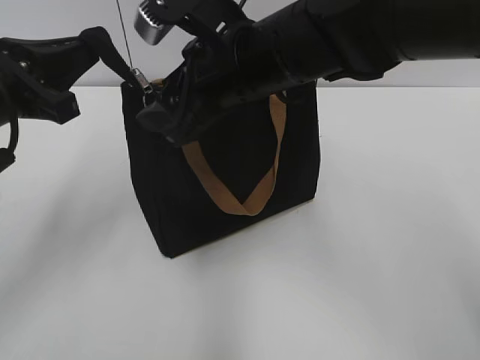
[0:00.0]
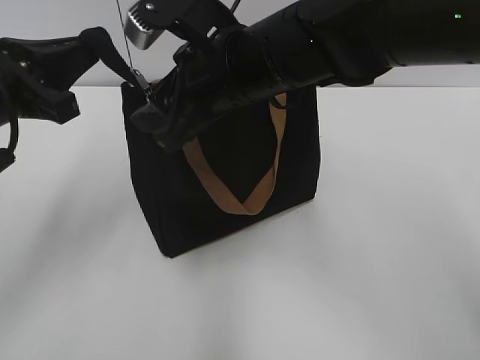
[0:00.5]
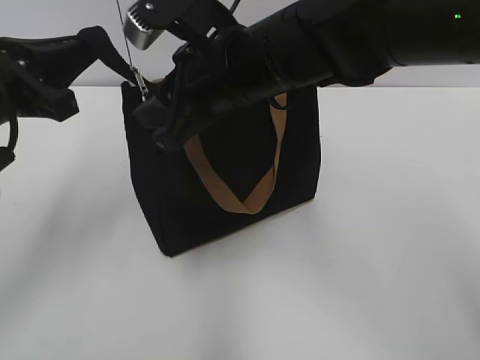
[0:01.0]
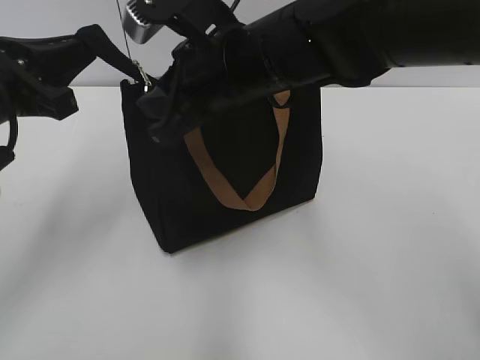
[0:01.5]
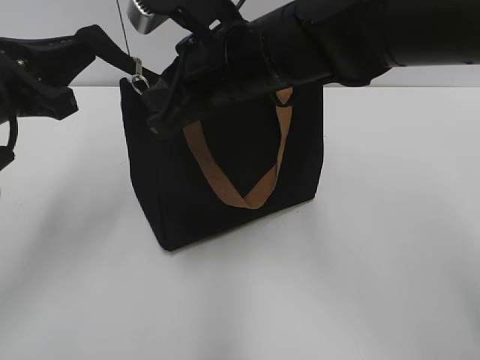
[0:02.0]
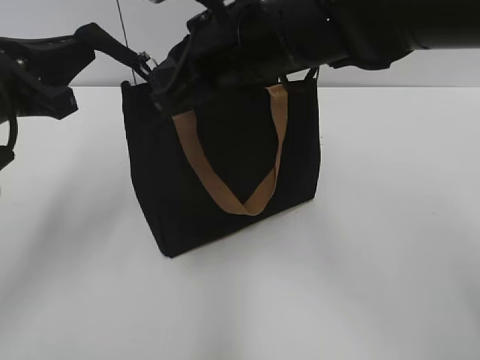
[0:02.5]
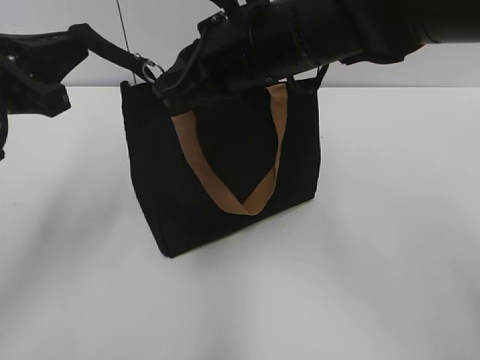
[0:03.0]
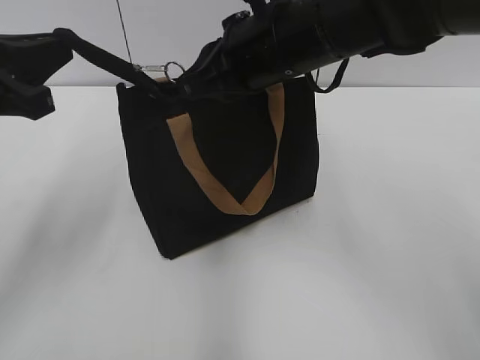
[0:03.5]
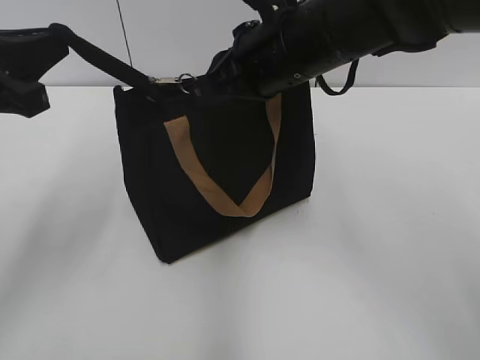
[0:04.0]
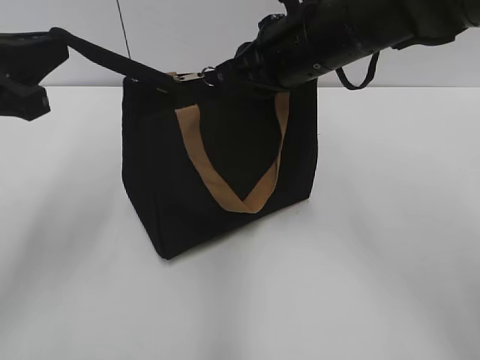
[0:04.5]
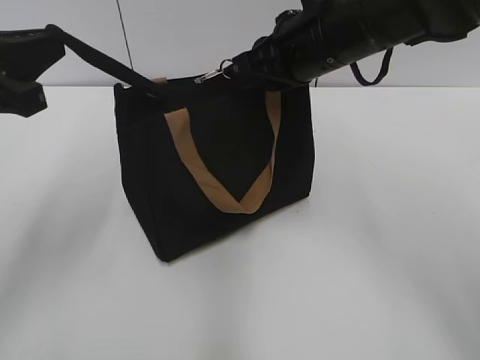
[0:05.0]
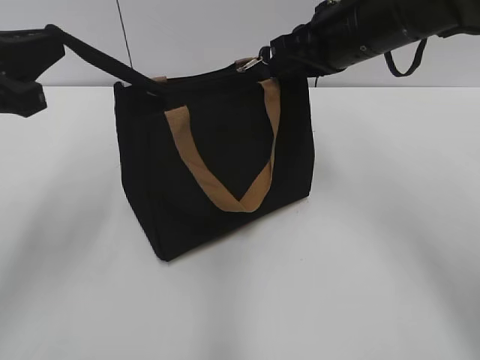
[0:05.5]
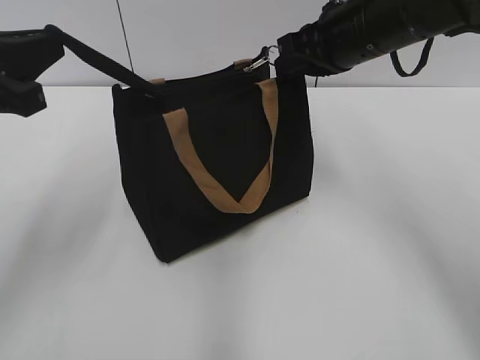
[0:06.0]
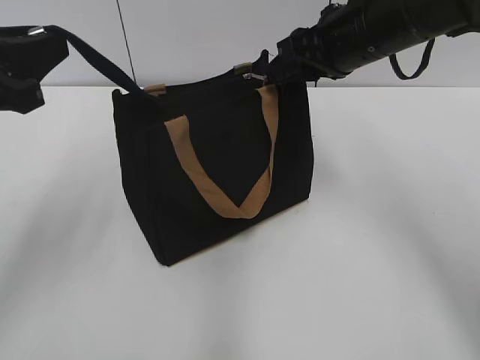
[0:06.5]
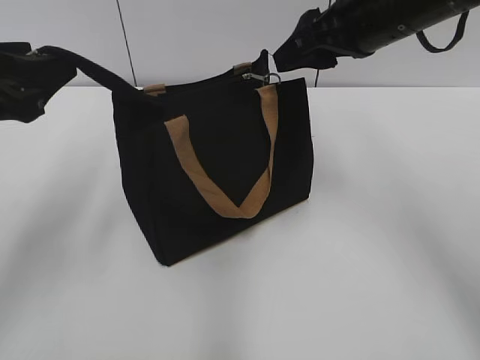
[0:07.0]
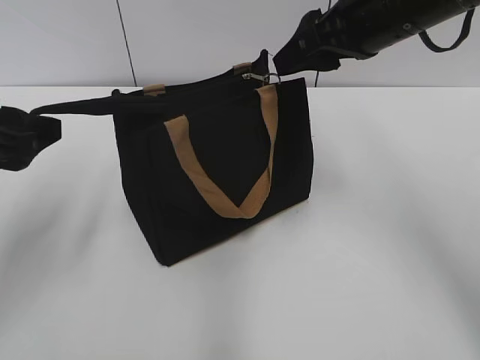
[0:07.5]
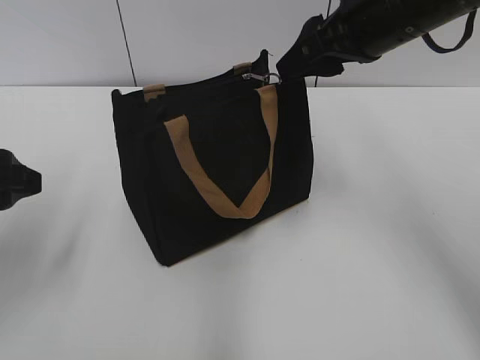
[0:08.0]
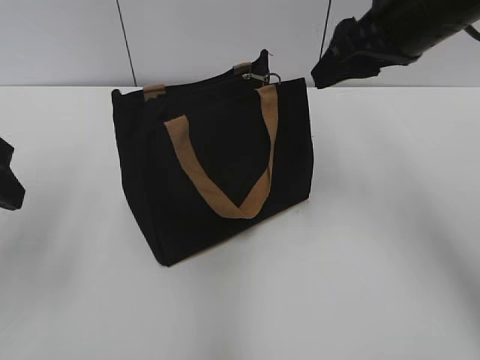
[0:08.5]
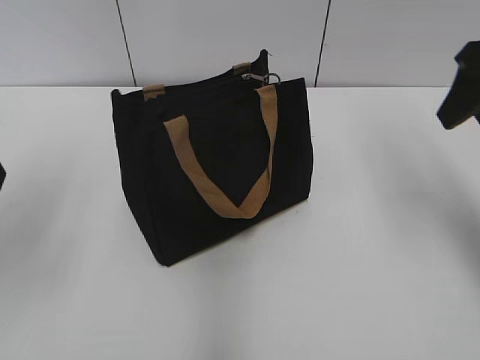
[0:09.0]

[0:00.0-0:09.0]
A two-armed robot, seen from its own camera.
Step, 0:00.0 to 0:06.0: Zip up the bag with your right hand.
Step, 0:06.5 to 0:07.5: Grab the zipper with your left hand.
0:00.0 to 0:02.0: The right gripper closes.
0:02.0 to 0:04.5: The right gripper travels to the right by about 5 cm.
0:04.5 to 0:07.0: The right gripper goes about 5 cm to the right, and opens its fingers; the left gripper opens.
0:07.0 to 0:09.0: The right gripper shifts approximately 10 cm to the right.

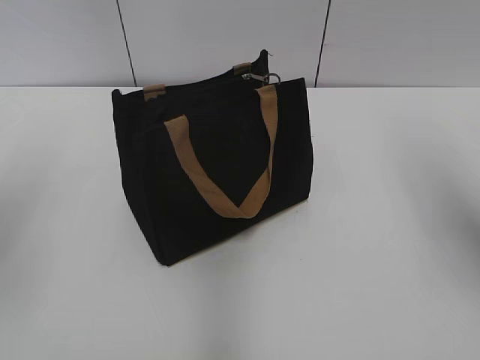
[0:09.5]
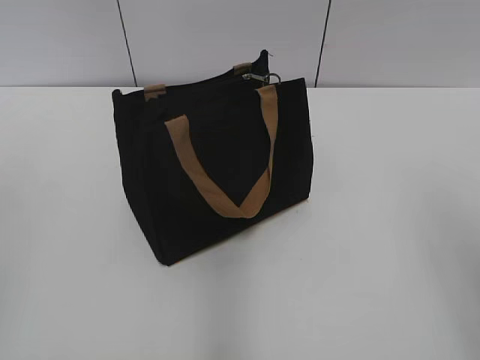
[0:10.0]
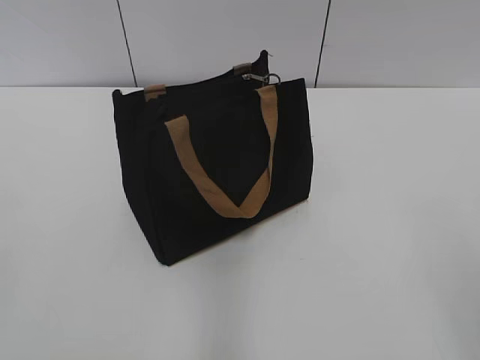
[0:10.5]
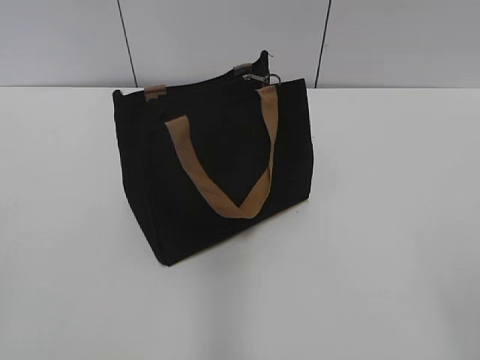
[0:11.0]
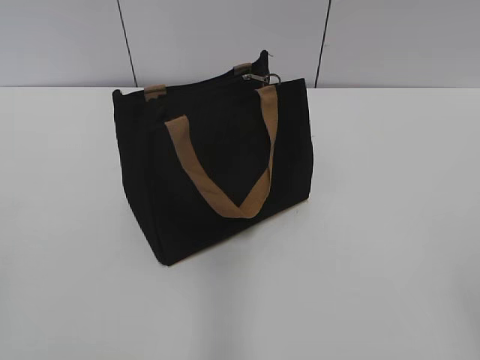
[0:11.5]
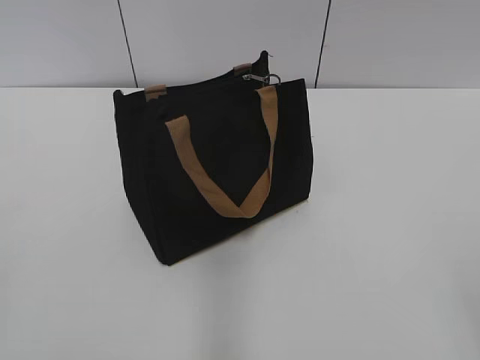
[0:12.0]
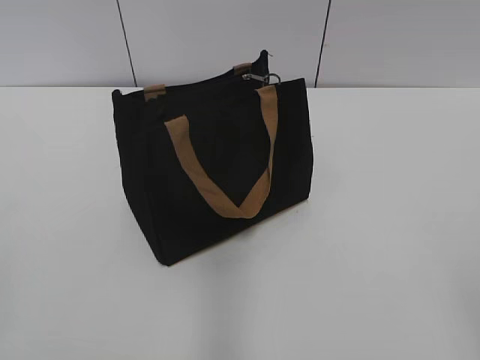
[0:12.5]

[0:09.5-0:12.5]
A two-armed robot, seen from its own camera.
0:09.5 to 0:11.0: The two grippers go roughly 25 cm backward.
